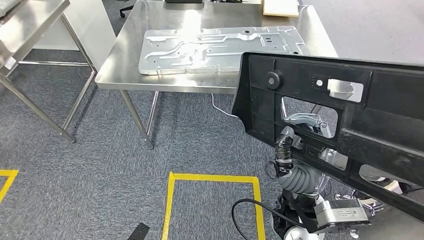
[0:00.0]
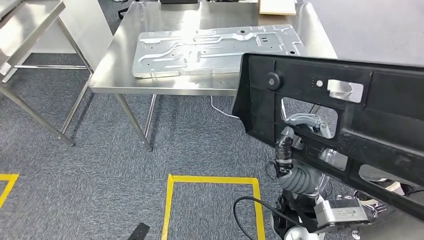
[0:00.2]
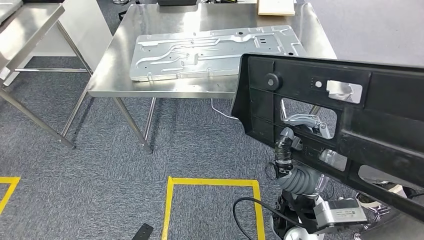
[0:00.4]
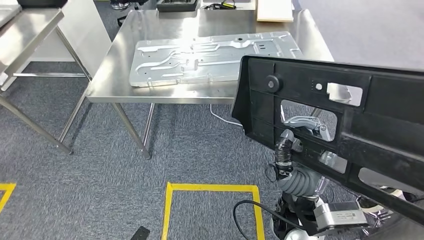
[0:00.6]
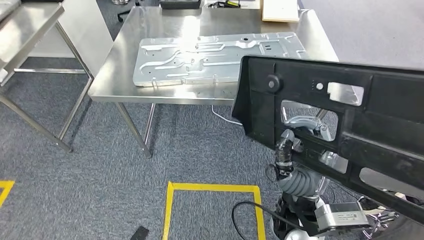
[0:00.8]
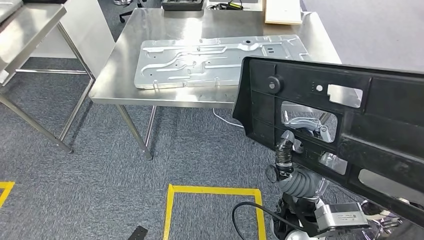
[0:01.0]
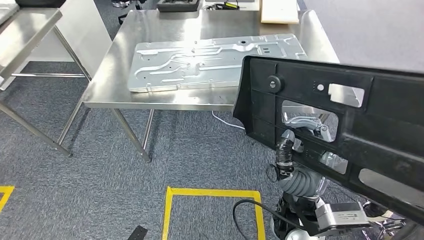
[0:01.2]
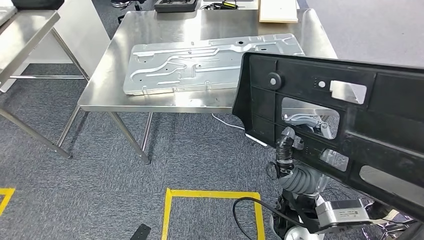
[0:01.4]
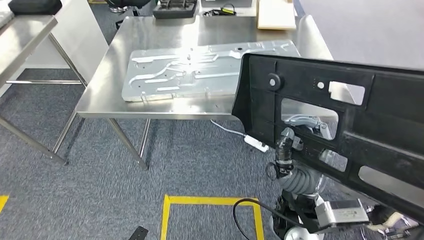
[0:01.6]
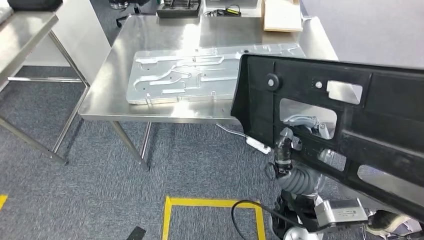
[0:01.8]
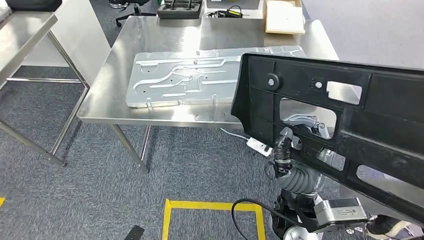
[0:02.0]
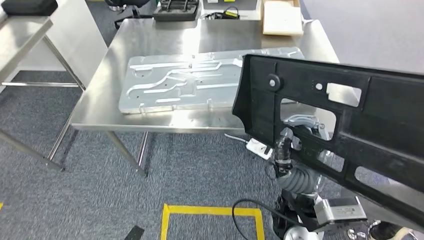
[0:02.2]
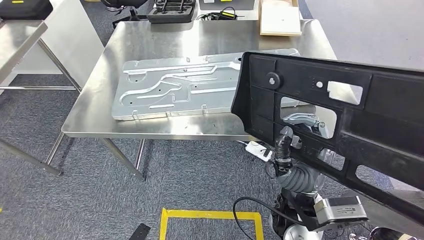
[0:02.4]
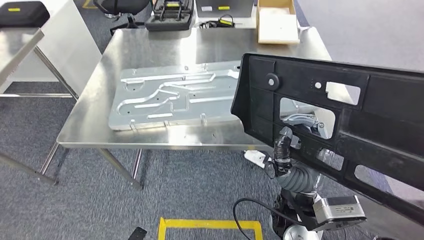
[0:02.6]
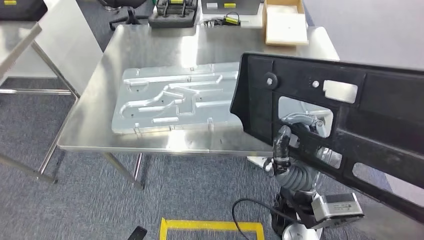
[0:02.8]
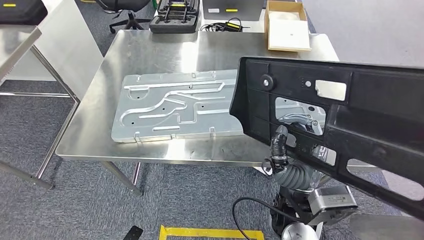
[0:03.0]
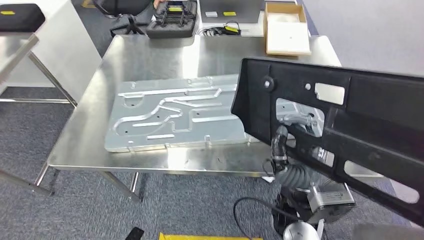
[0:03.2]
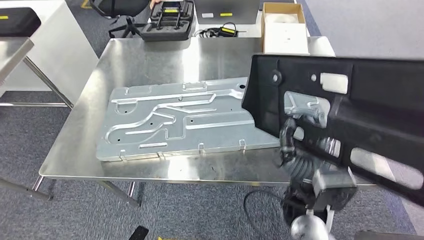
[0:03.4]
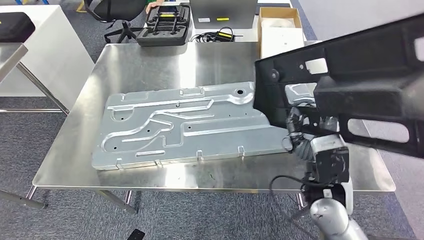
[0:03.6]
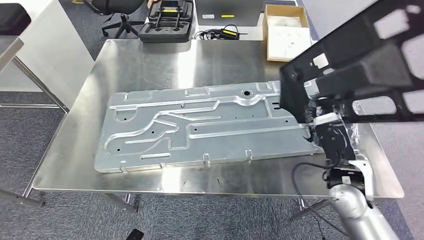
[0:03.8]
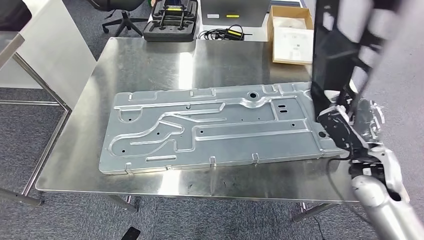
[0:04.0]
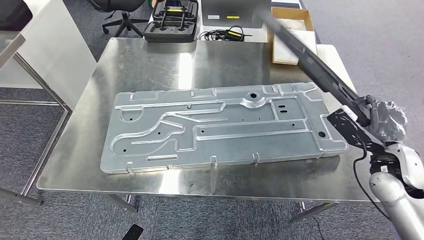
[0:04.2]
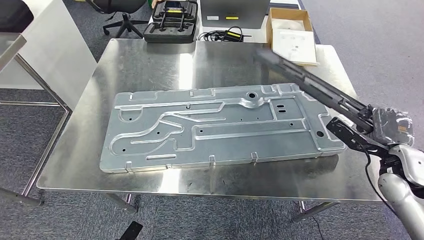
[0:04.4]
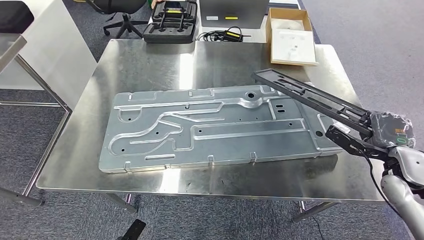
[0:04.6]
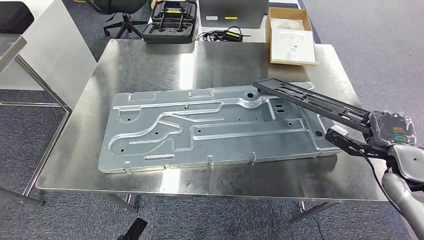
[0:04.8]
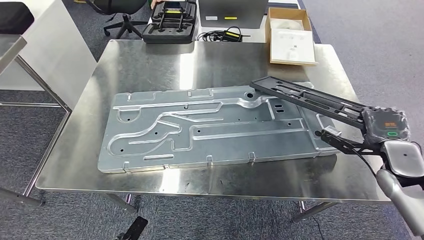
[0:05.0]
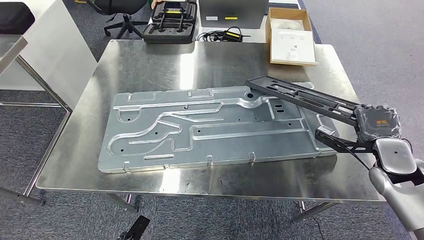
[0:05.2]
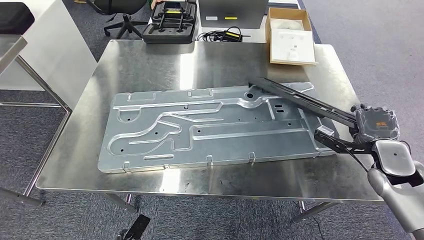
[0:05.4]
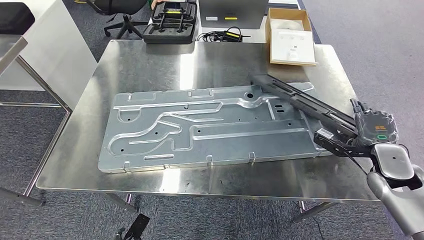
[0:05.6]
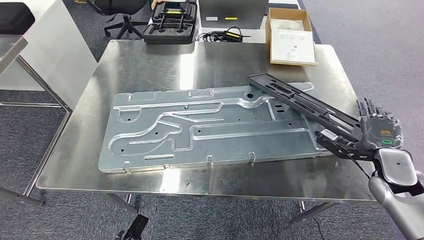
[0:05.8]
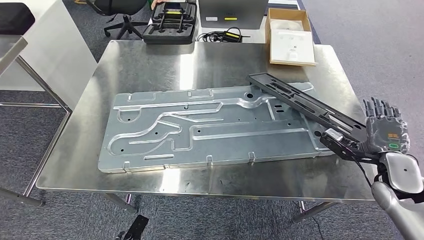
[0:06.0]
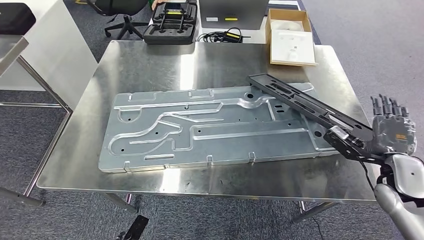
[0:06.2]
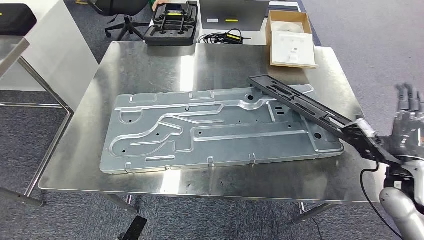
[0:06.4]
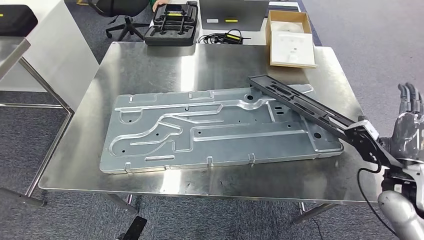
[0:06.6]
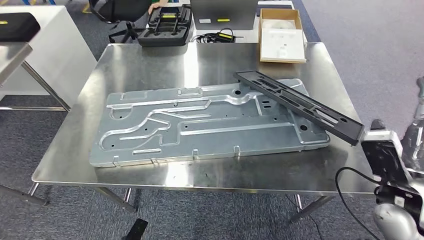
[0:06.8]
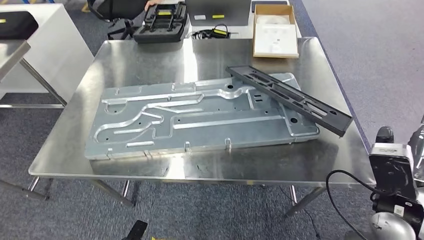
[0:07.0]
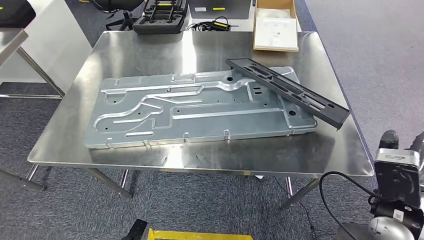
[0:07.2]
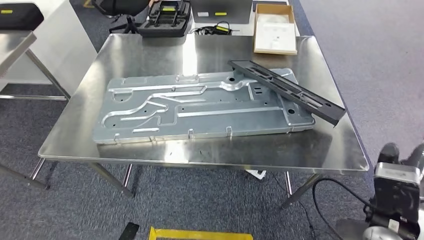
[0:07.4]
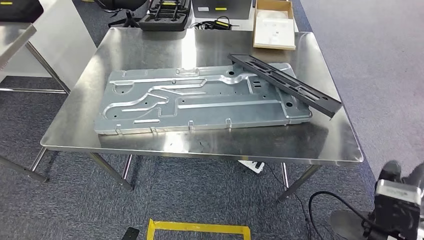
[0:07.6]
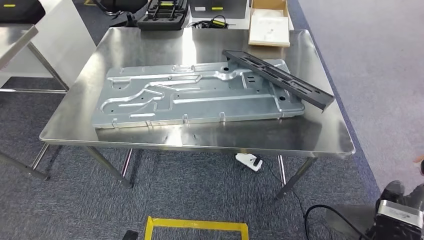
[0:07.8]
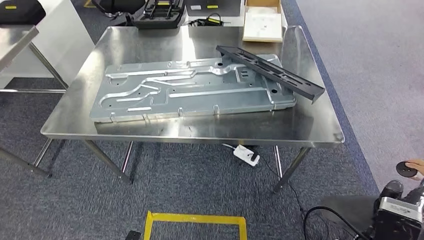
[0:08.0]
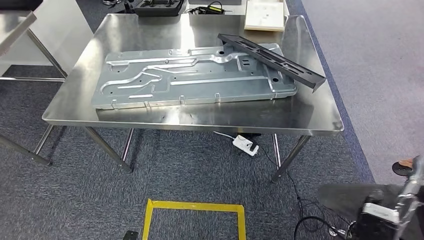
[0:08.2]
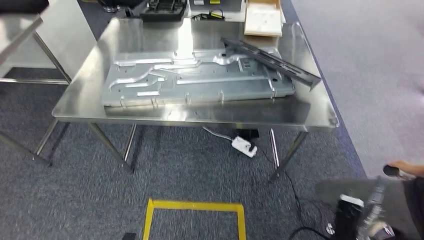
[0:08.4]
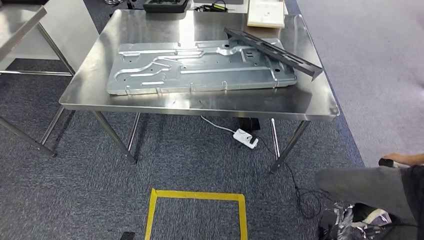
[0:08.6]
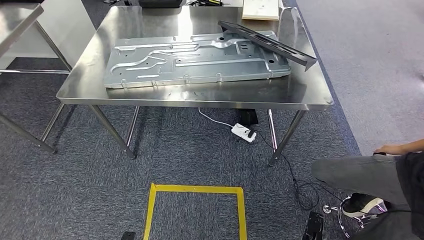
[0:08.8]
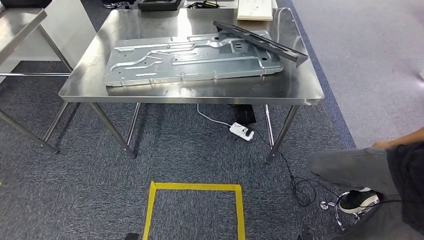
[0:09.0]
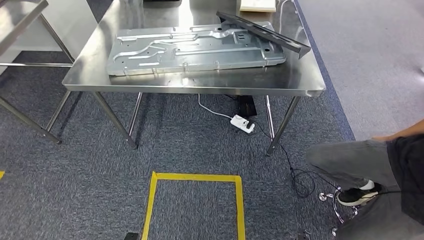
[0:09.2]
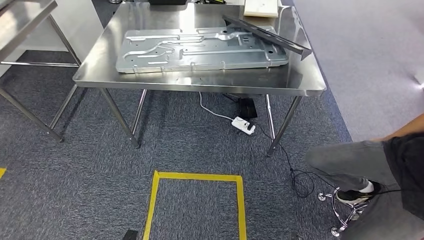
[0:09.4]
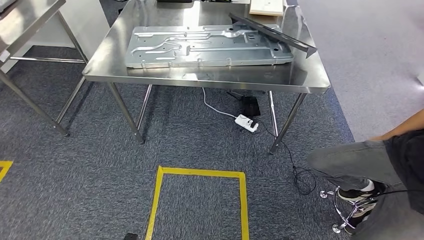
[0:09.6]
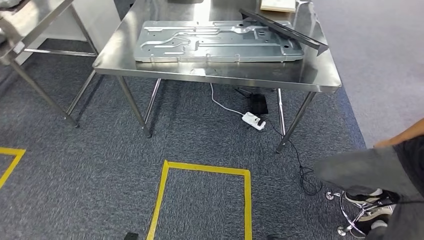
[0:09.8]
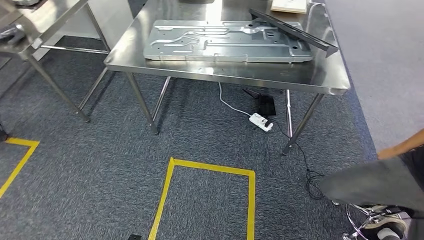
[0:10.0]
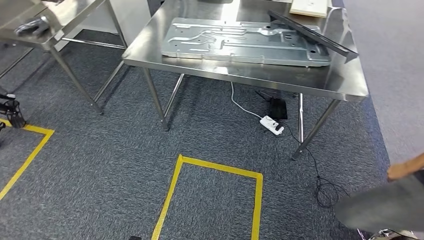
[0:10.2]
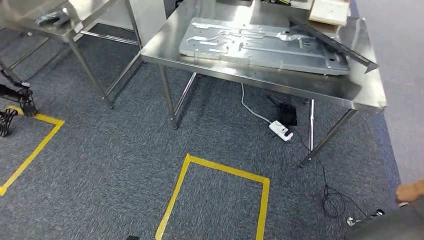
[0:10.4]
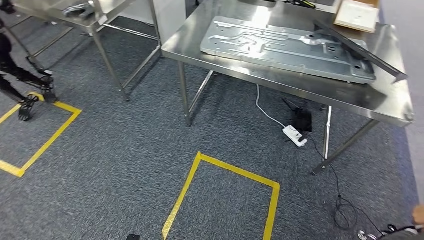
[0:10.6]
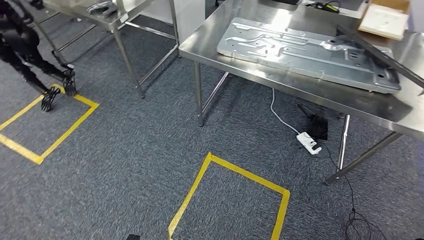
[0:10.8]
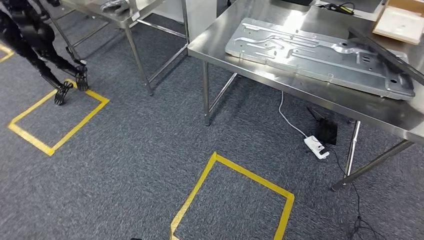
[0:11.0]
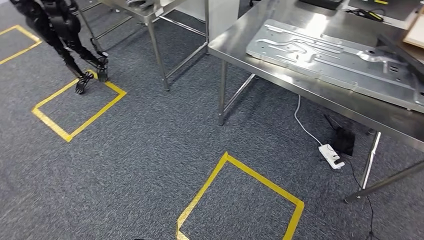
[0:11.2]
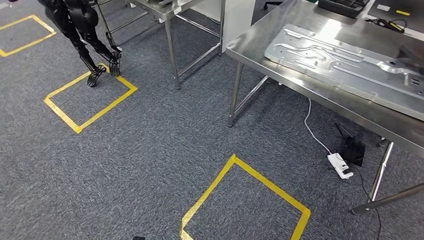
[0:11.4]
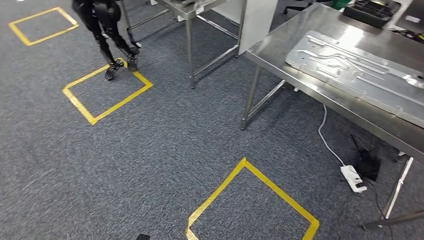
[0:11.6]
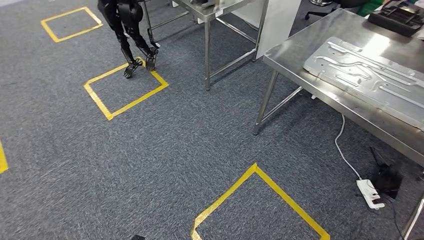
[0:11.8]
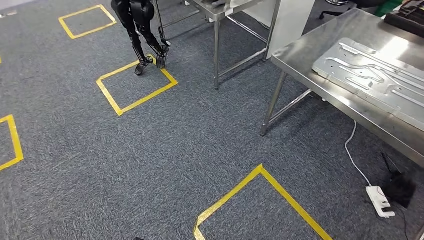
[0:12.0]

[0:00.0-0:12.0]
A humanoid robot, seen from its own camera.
Step, 0:02.0 to 0:10.4: Insert the large material into the corresponding hole on the workbench.

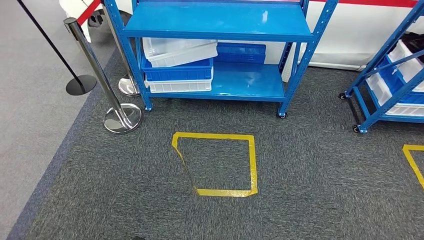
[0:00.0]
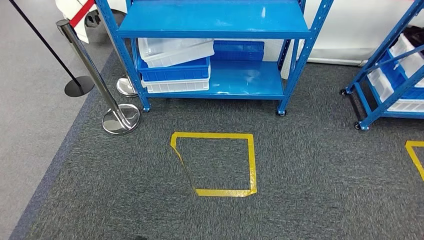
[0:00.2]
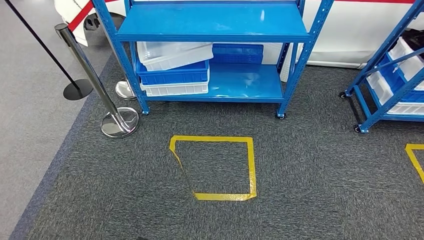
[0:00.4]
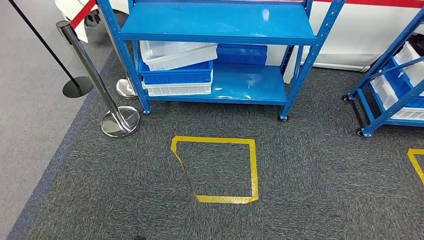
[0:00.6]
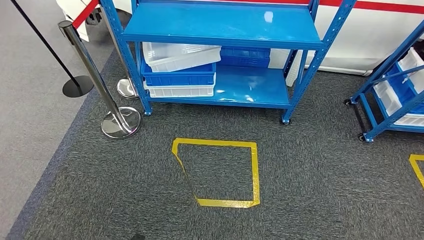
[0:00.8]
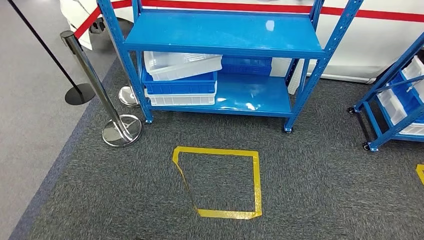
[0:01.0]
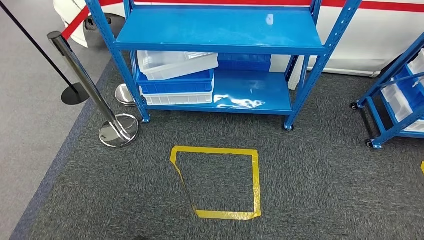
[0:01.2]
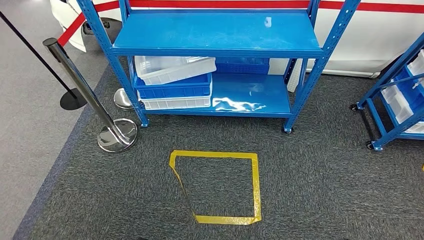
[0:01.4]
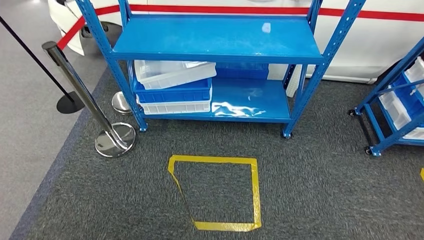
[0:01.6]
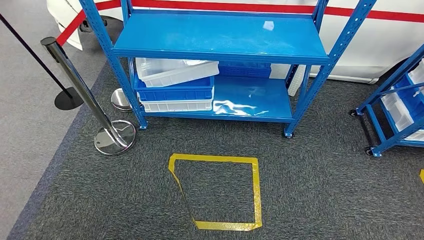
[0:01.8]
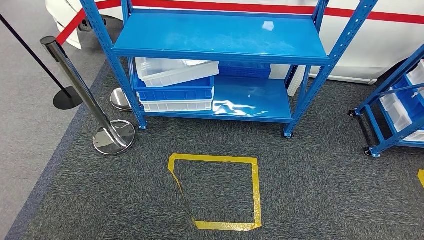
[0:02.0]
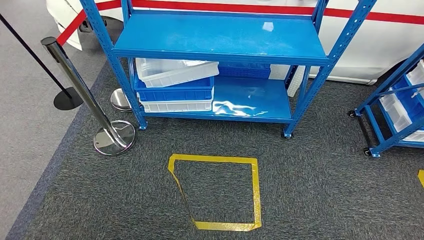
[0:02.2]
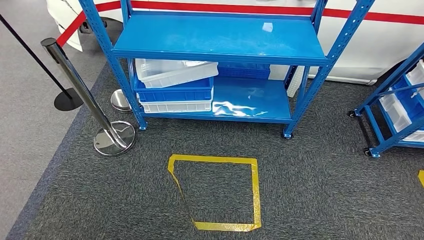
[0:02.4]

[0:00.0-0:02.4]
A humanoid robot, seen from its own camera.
Step, 0:00.0 to 0:02.4: Move to the initial position of the shelf.
